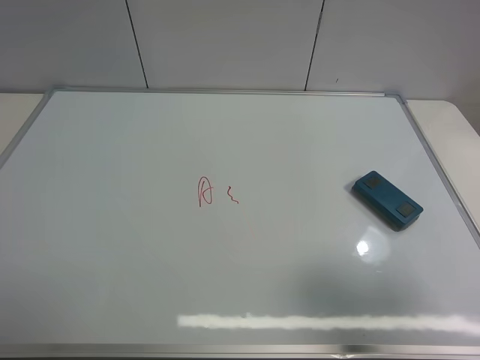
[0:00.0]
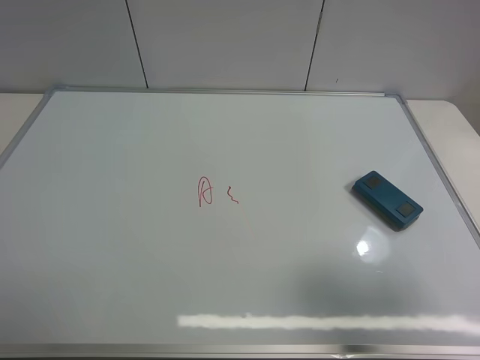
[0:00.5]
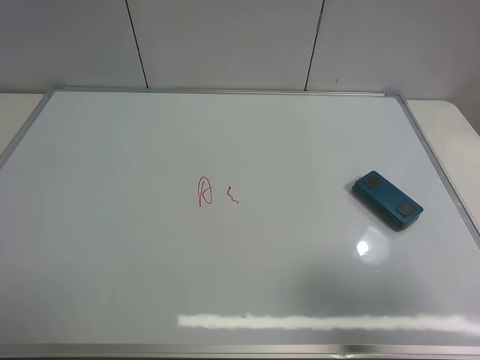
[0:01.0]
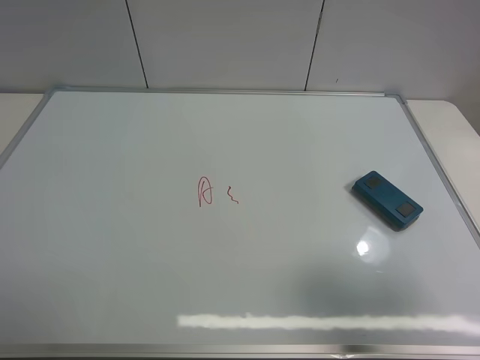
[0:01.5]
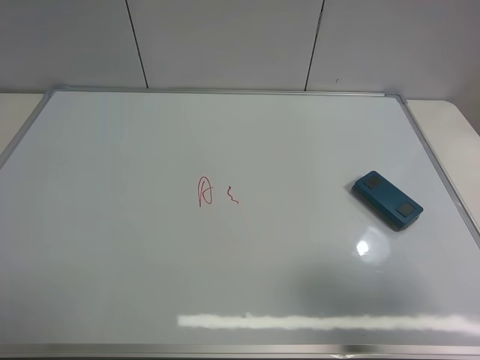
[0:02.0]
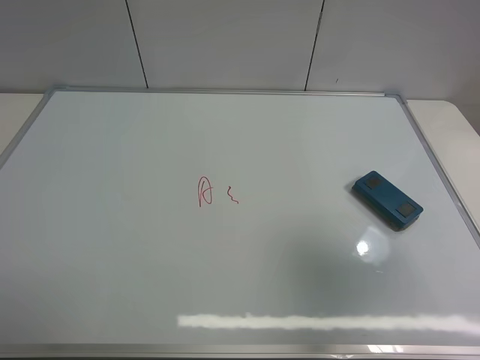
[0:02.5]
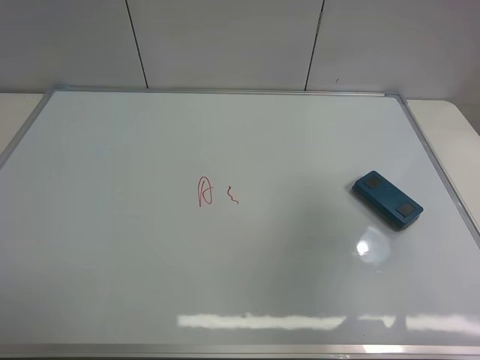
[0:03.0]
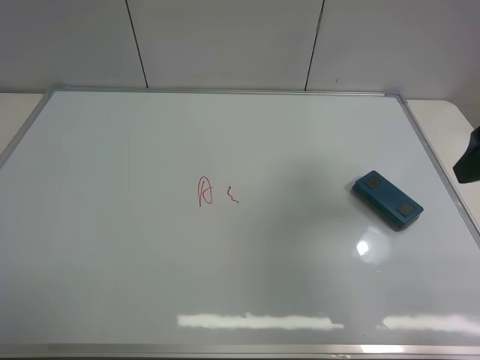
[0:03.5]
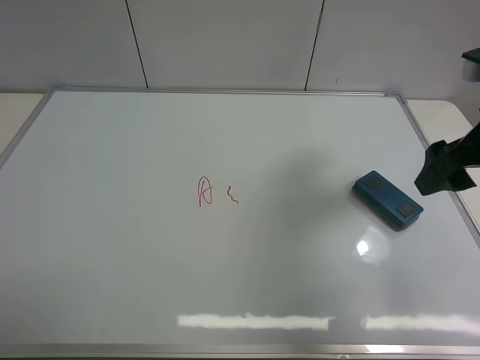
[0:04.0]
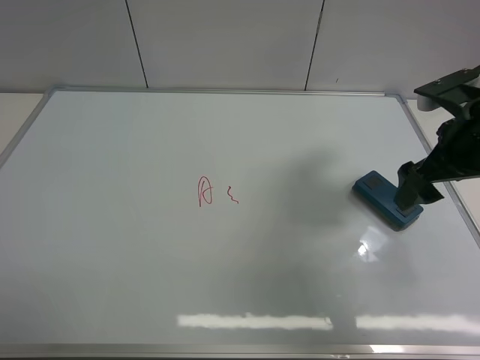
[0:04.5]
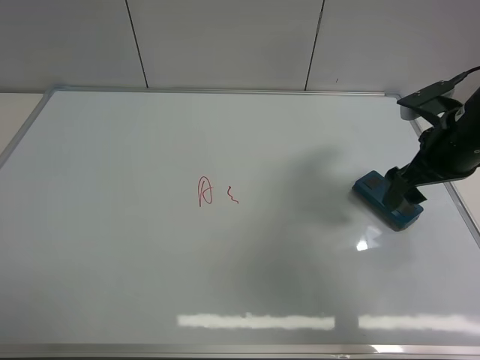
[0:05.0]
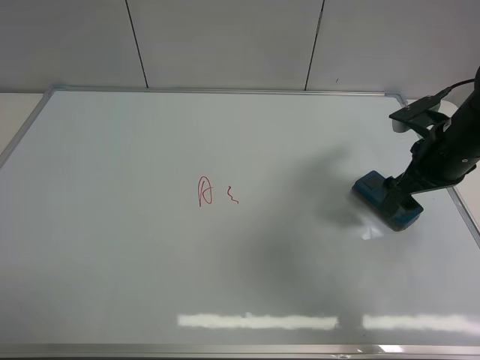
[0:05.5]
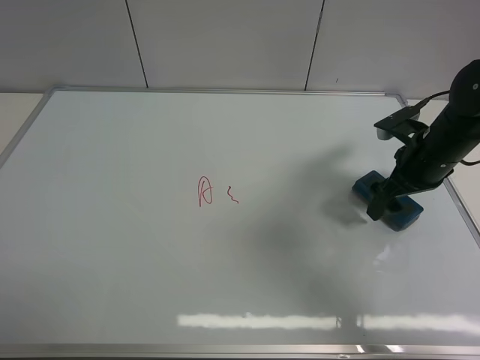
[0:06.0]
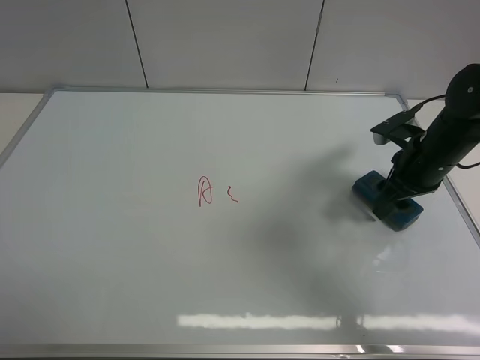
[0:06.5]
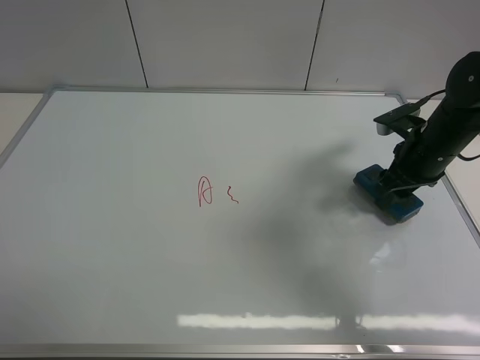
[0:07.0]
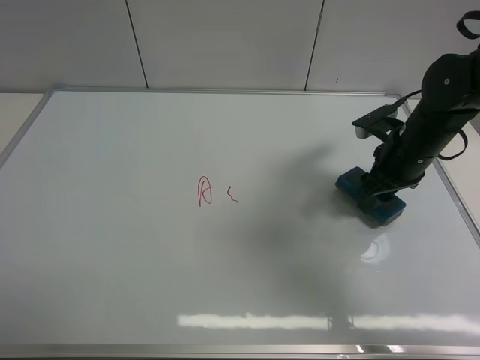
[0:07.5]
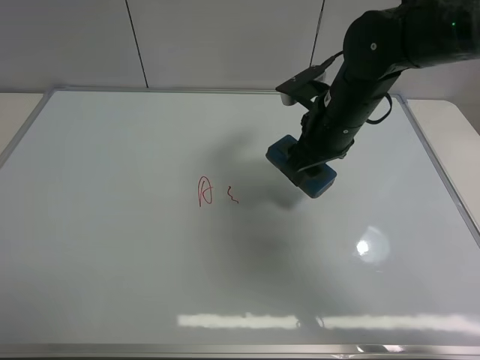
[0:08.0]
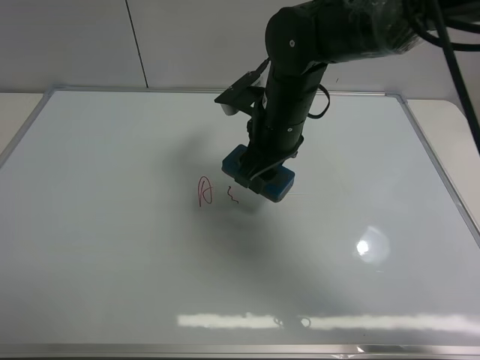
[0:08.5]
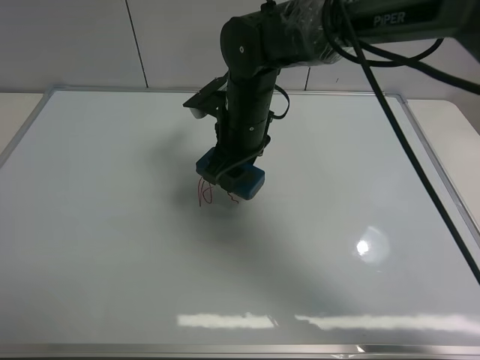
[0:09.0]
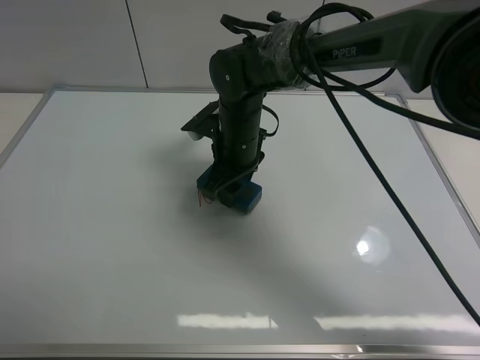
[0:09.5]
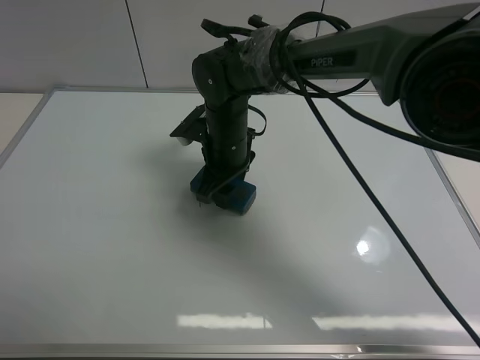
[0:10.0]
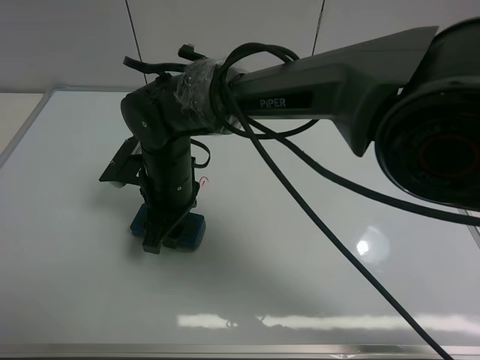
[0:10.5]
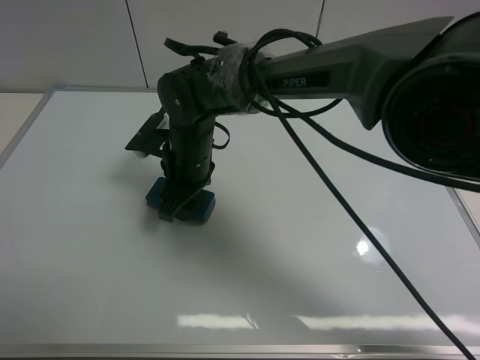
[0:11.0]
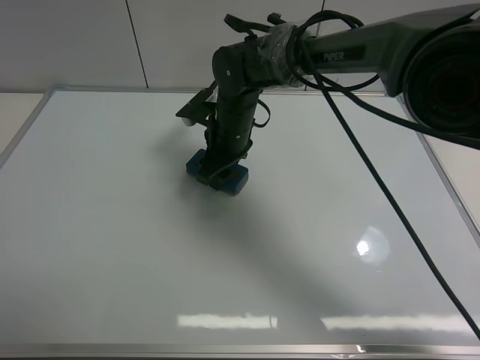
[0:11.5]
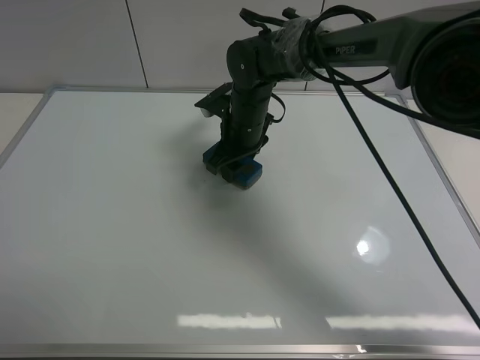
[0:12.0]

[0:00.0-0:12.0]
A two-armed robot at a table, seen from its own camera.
Task of the whole recording: use the right gripper to pick up the board eraser, wipe the notes on the whiteboard clean, and then put them back in place.
Step, 0:00.0 to 0:06.5: Pick up the board eraser with right gripper.
0:00.0 to 0:02.0: Neither gripper changes place.
0:02.0 to 0:04.0: The right gripper heads forward, covering approximately 20 cm.
0:04.0 to 0:06.0: The right gripper travels downward and forward by approximately 15 cm.
0:06.0 to 0:08.0: The right gripper travels to the left by roughly 15 cm, and closes its fingers.
0:08.0 to 0:10.0: The right gripper heads to the left and downward, covering roughly 15 cm.
0:10.0 to 0:12.0: The right gripper moves forward, roughly 5 cm.

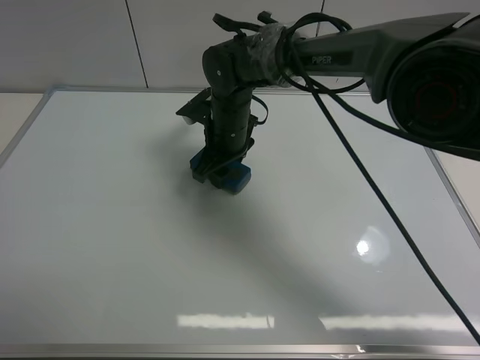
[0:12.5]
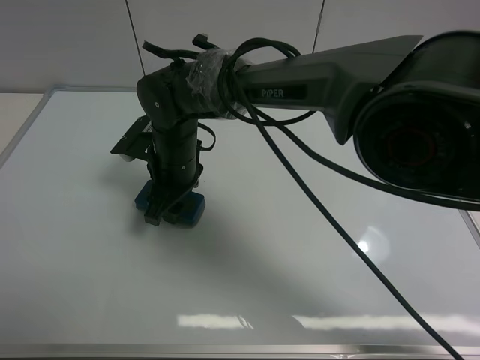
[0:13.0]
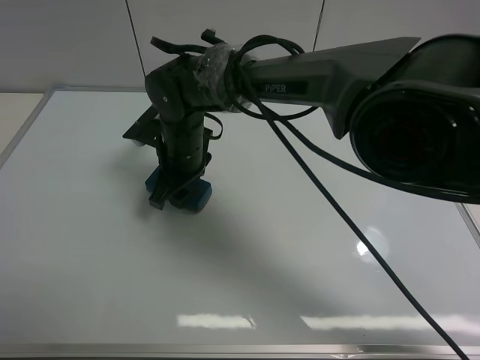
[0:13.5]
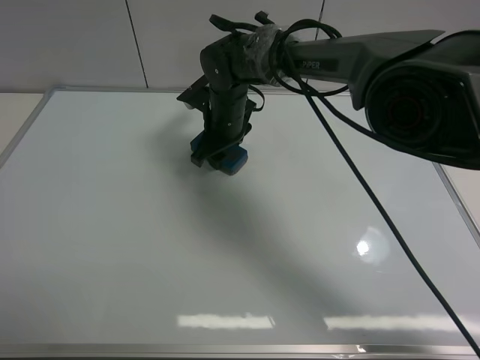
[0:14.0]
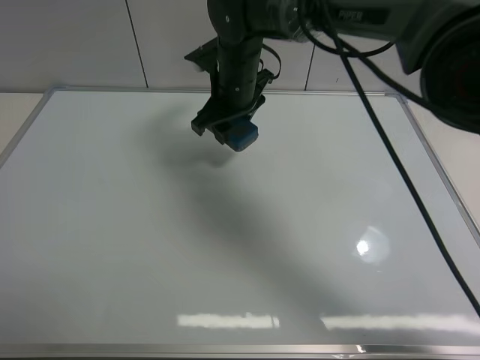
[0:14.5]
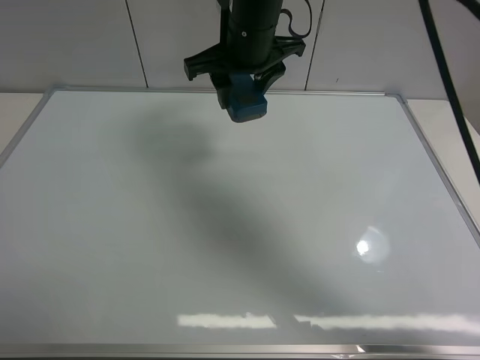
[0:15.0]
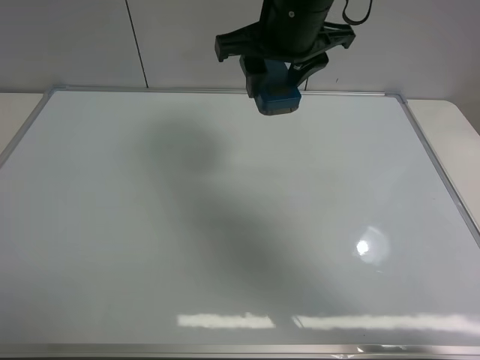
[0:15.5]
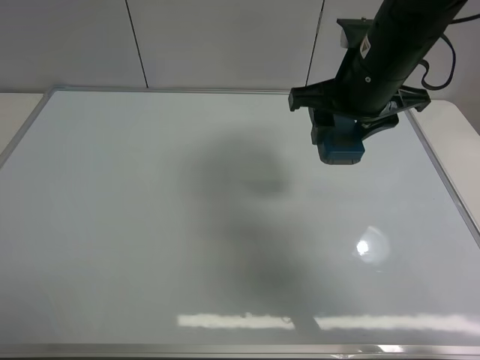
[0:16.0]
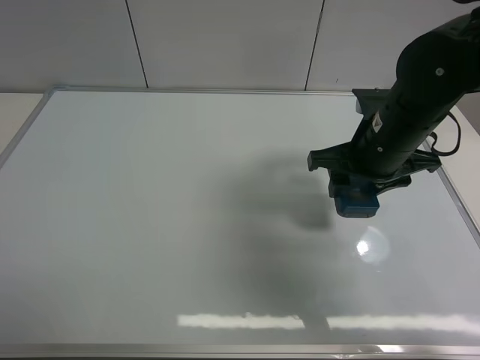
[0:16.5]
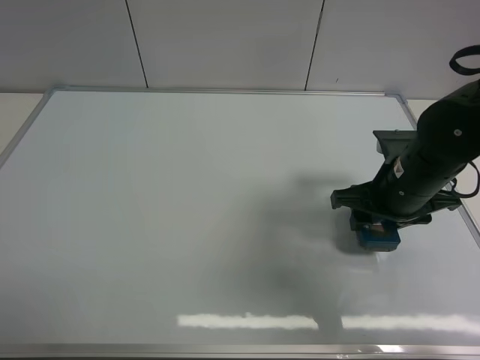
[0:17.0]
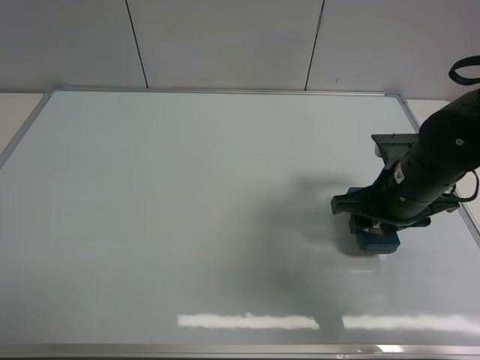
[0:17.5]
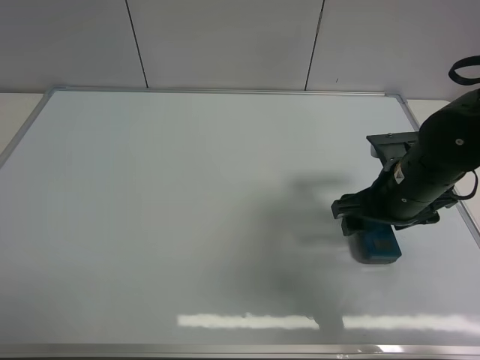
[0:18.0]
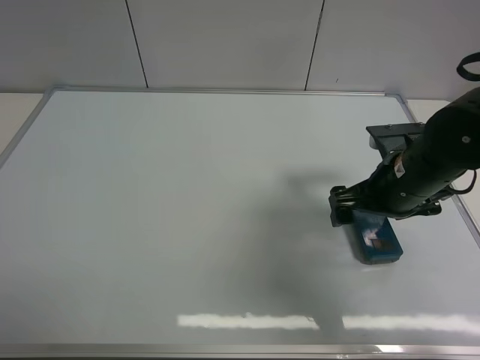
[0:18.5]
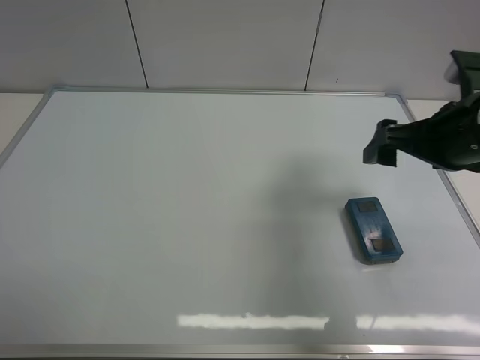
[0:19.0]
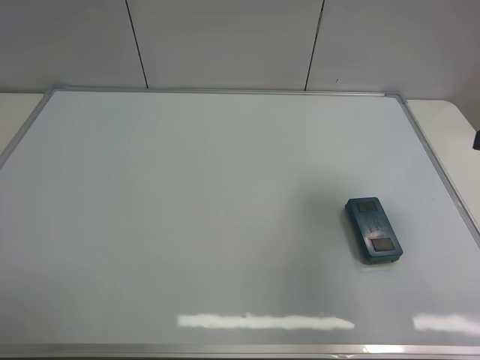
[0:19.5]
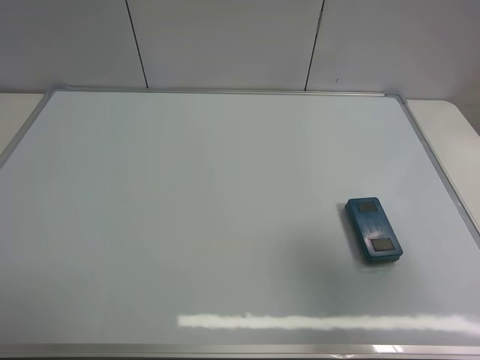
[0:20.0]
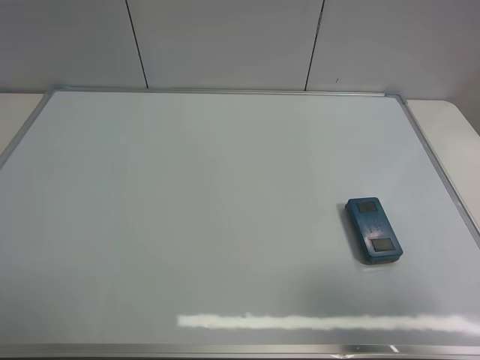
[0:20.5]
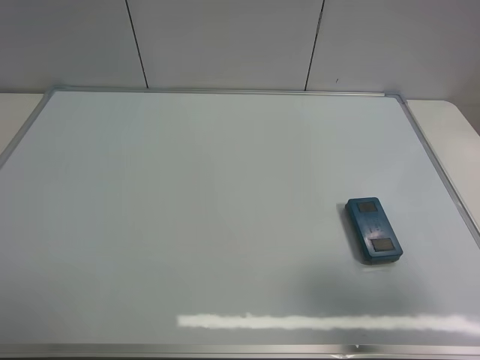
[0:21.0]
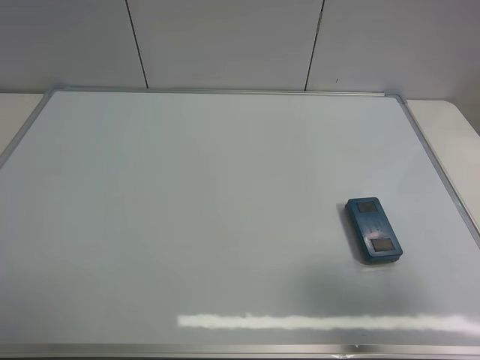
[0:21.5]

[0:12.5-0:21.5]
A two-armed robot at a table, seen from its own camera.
Task of the whole recording: use the right gripper to pick up the board eraser, wipe the notes on the whiteboard clean, and then put them back in place.
Step, 0:14.5 to 0:18.0: Place the board eraser on the right side of board with right gripper.
0:12.5 to 0:14.5: The right gripper goes roughly 10 cm upward, and travels backward and back again, roughly 5 cm each way.
0:14.5 to 0:17.0: The right gripper shifts about 25 cm to the right and backward.
0:17.0 to 0:19.5: The right gripper travels upward, to the right and backward by about 20 cm, and opens its fingers.
0:19.5 to 0:21.5: The right gripper moves backward, about 15 cm.
